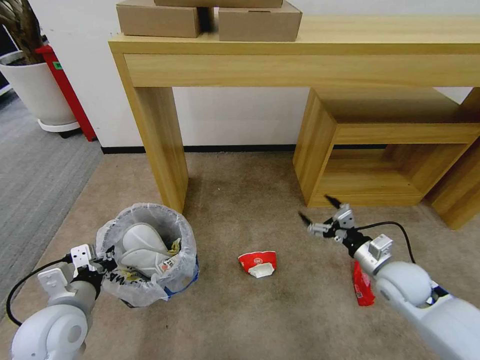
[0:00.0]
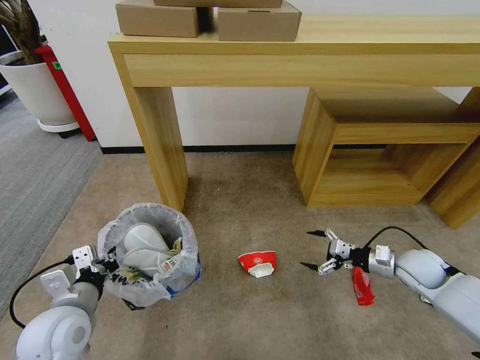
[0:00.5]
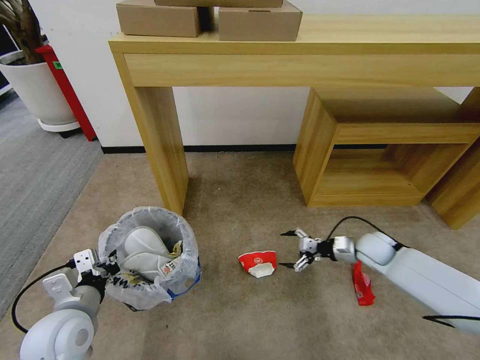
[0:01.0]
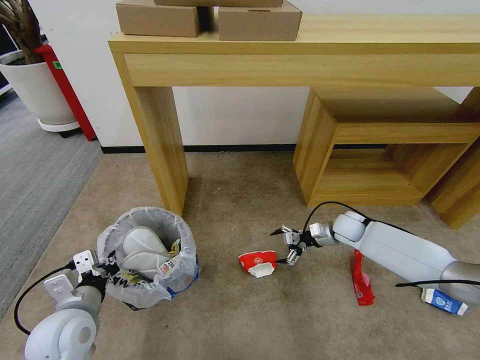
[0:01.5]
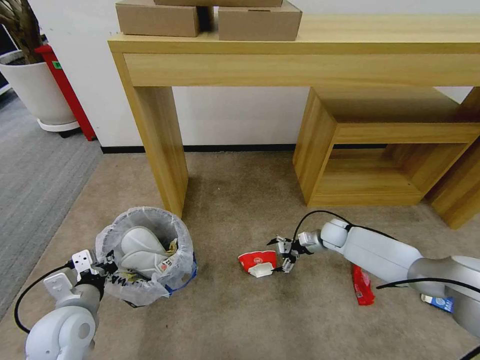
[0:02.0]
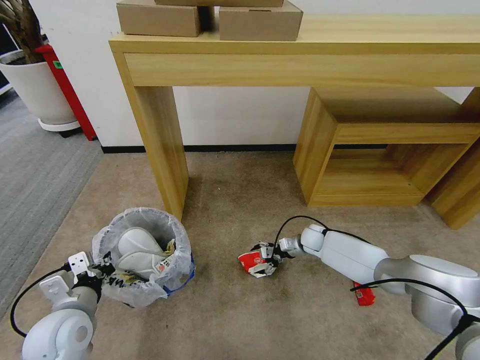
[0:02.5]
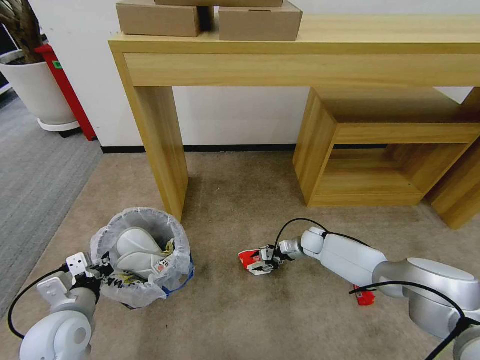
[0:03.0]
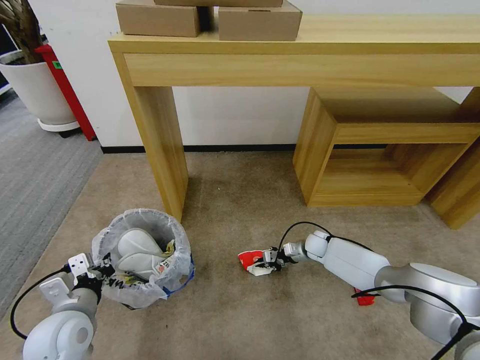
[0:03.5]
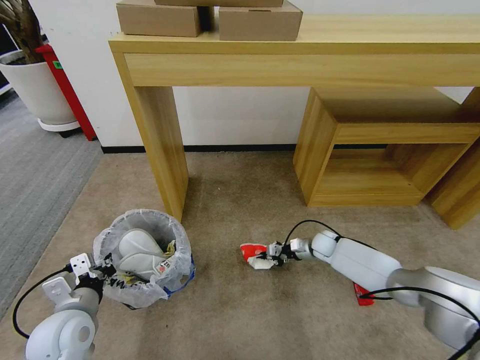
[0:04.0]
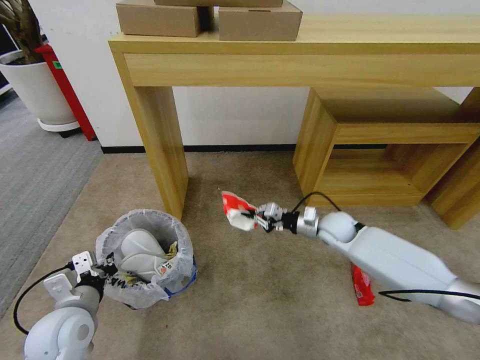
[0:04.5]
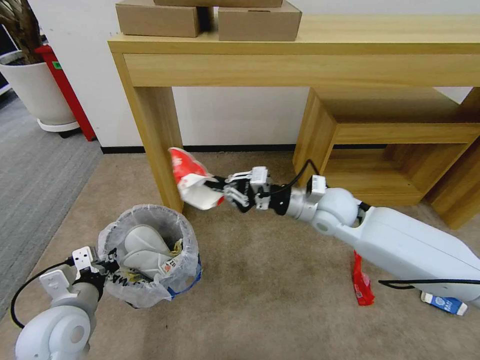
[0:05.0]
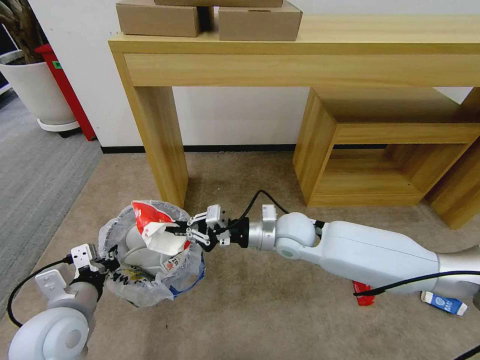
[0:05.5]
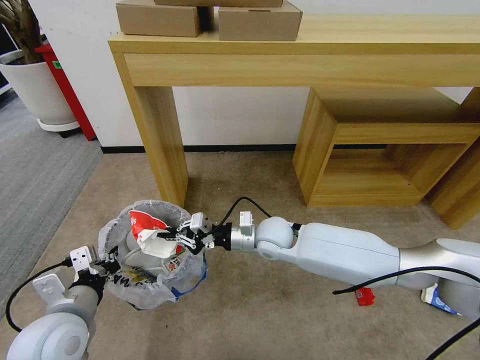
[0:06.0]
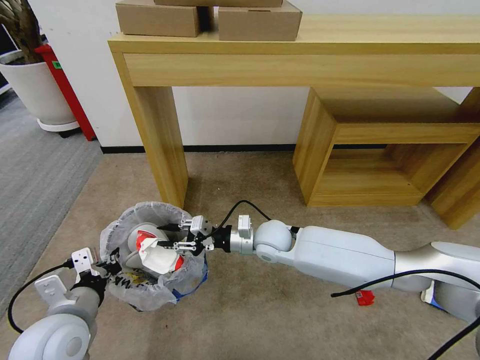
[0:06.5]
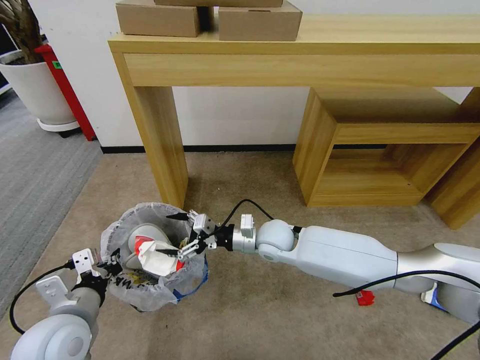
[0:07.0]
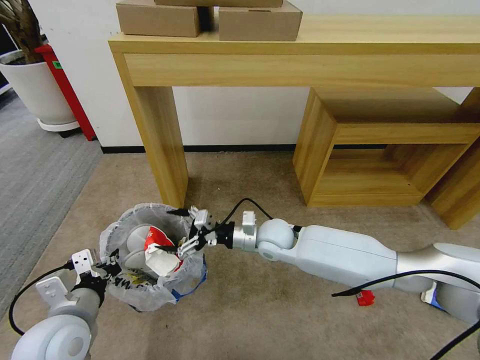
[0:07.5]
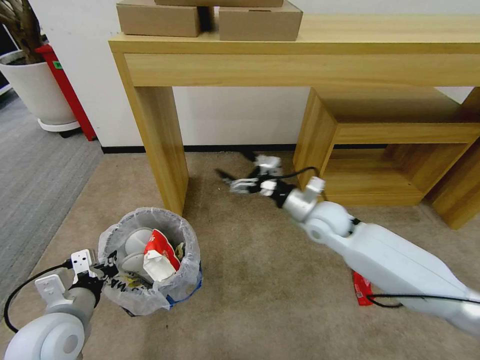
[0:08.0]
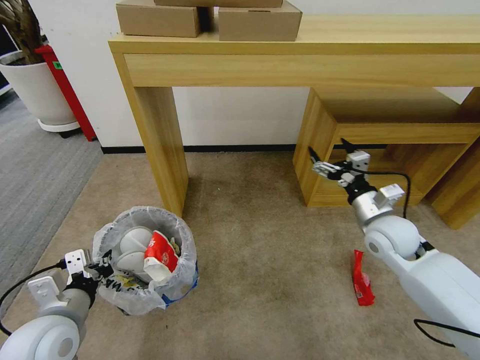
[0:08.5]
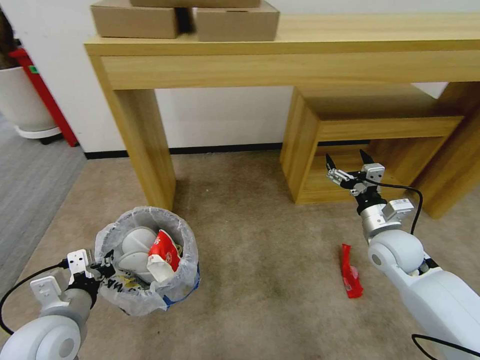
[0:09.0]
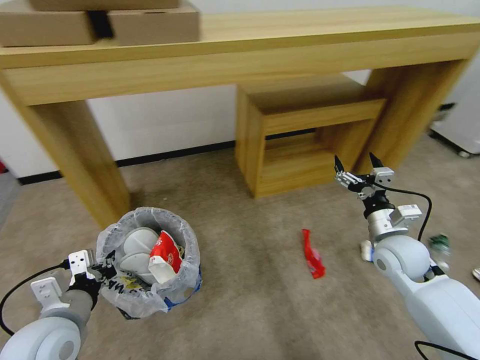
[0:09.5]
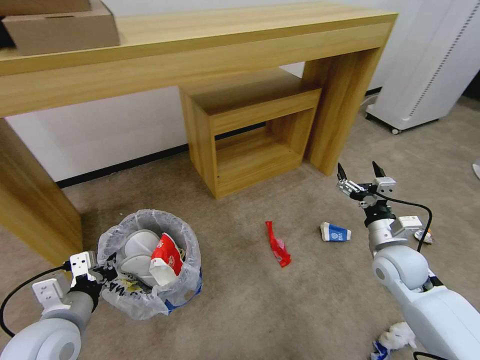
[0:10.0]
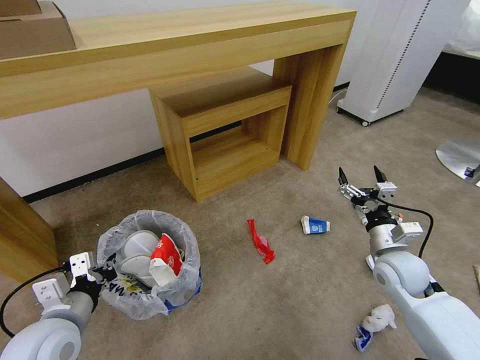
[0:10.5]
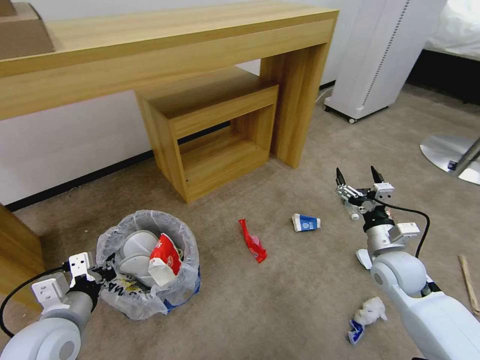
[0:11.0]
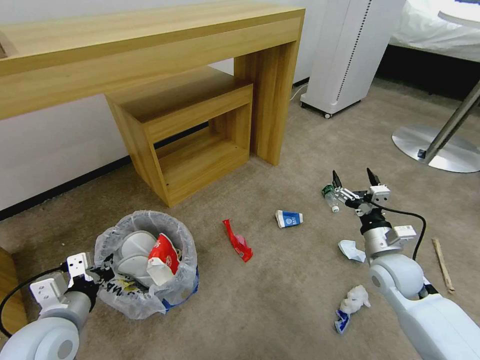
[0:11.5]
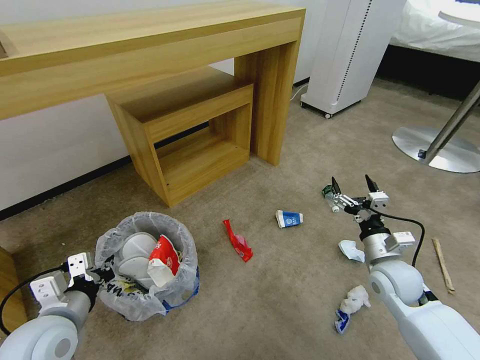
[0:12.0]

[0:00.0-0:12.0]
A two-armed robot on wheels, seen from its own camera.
Task of the whole recording: Pick up the trash bin and place the garbage on the floor into it.
0:00.0 to 0:02.0: The right gripper is displaced forward and downward by roughly 20 cm.
0:02.0 to 0:04.0: The right gripper moves downward, about 5 cm, and closes up.
0:04.0 to 0:06.0: The left gripper shifts some 5 cm upward, while the right gripper shifts about 30 cm to the left, upward and backward.
0:06.0 to 0:08.0: The right gripper goes some 15 cm to the right, and opens its fingers.
0:08.0 to 0:10.0: The right gripper heads to the right and backward, covering some 15 cm.

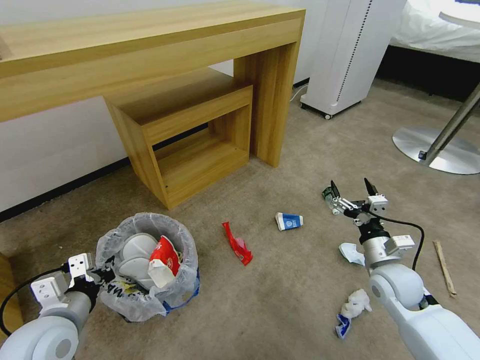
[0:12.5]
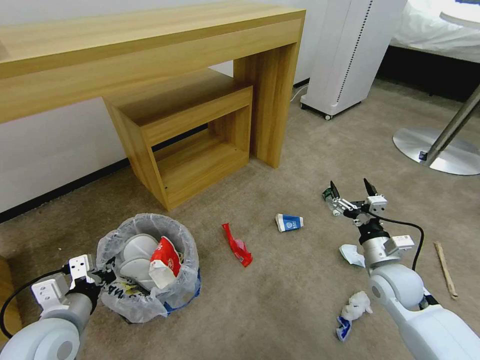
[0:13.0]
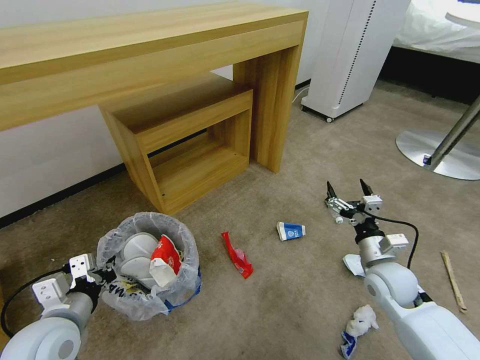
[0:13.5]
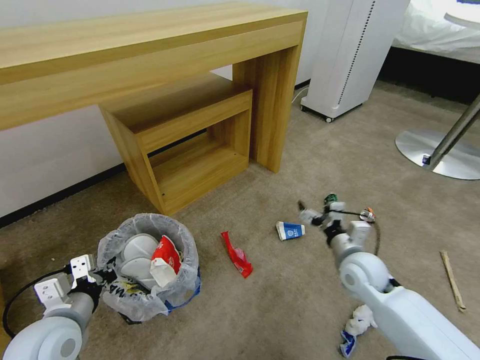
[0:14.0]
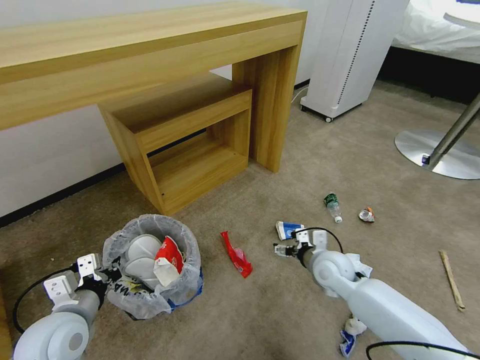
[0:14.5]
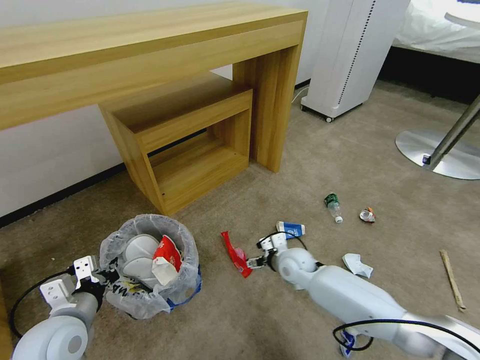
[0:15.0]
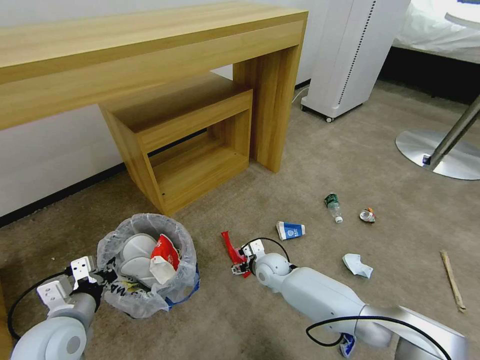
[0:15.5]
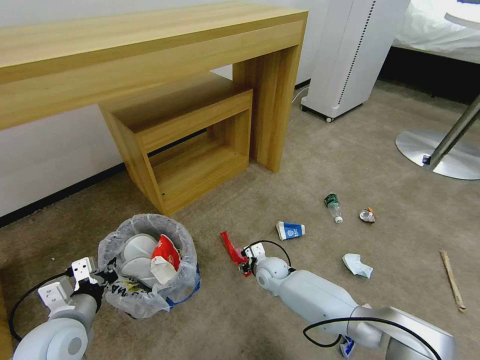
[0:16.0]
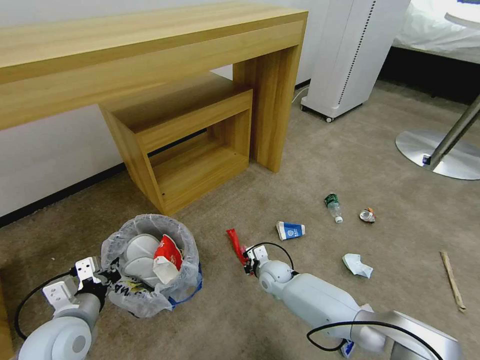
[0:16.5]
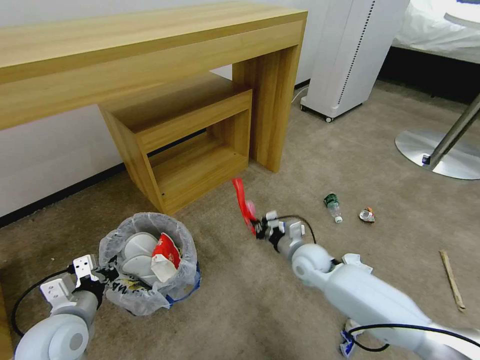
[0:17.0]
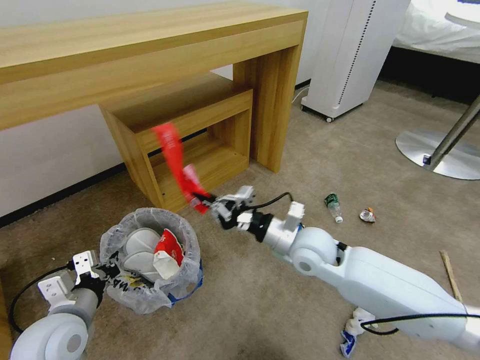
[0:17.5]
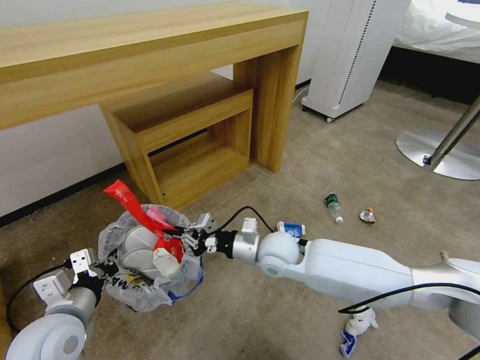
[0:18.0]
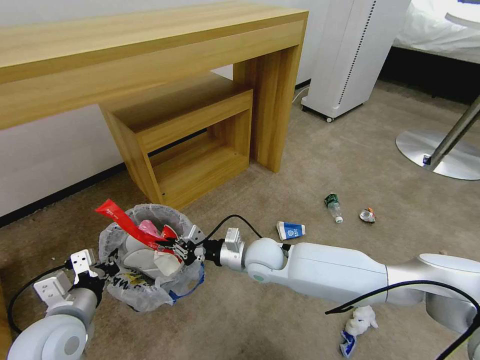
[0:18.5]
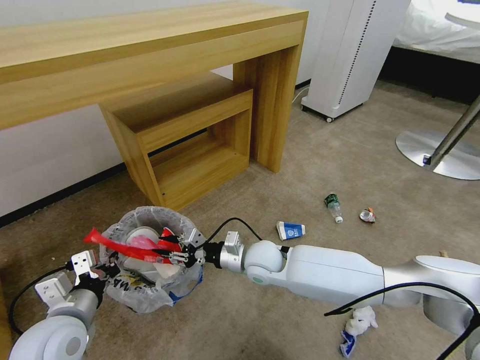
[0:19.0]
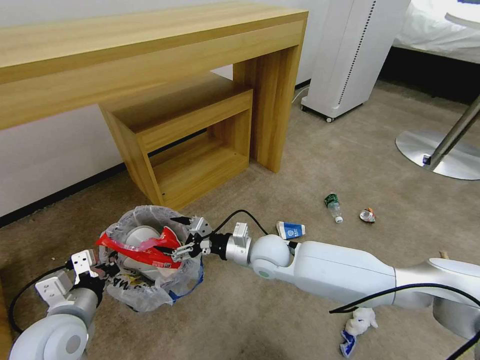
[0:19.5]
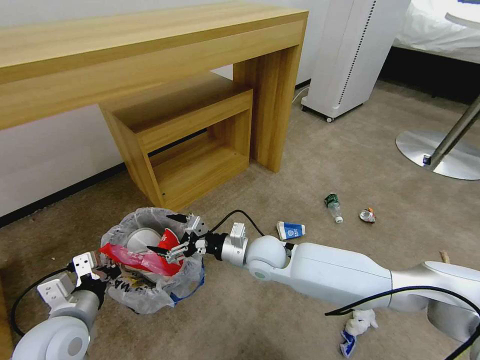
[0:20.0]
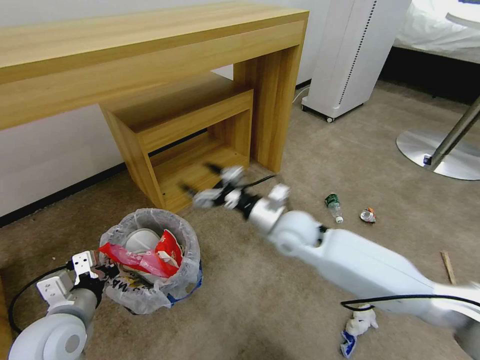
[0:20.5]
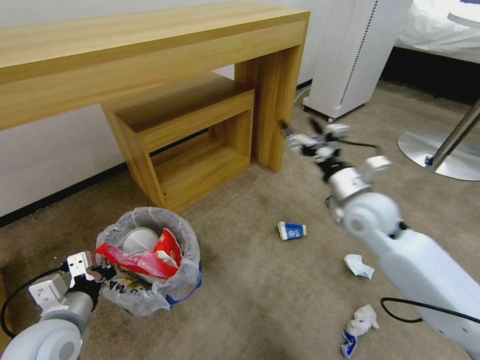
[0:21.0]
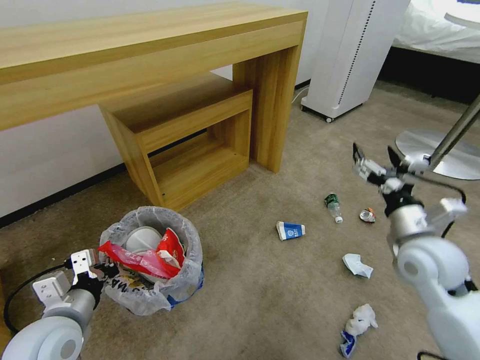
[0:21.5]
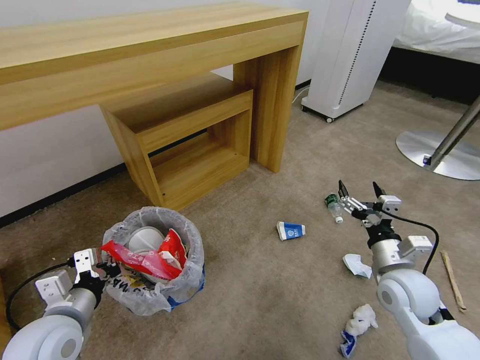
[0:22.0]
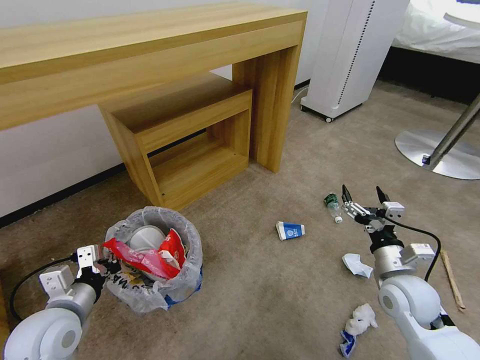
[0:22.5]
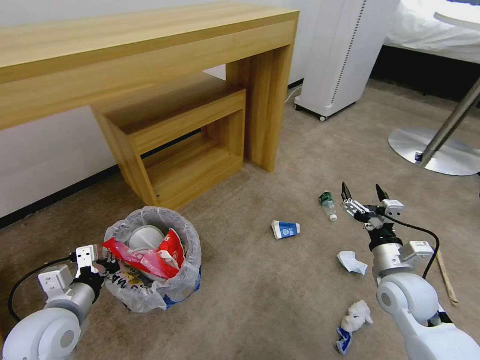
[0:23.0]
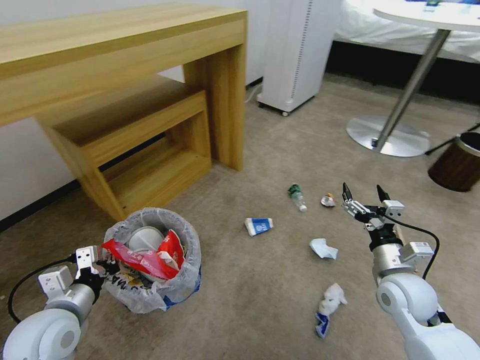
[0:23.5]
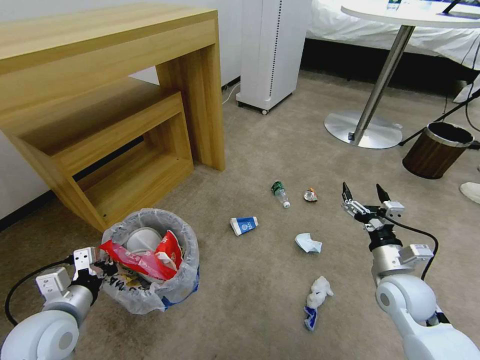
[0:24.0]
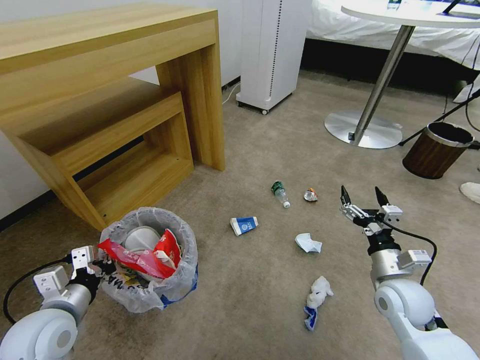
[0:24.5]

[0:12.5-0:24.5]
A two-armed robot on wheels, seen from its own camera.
Task of the whole recording: Pick up the trash bin and place the garbage on the floor into it.
0:12.5 to 0:14.5: The right gripper heads to the left and forward, covering about 15 cm.
0:14.5 to 0:16.5: The right gripper is displaced downward and to the left by approximately 15 cm, and closes up.
0:16.5 to 0:18.5: The right gripper goes approximately 15 cm upward.
0:18.5 to 0:20.5: The right gripper is displaced upward by roughly 5 cm, and opens.
0:20.5 to 0:22.5: The right gripper moves to the right and backward, approximately 25 cm.

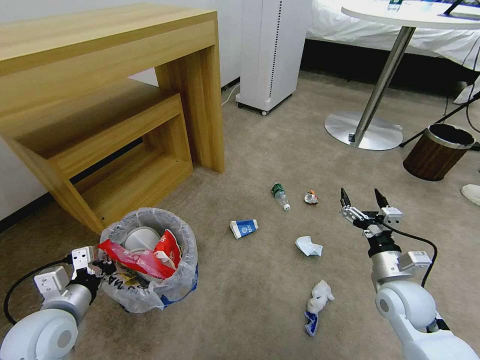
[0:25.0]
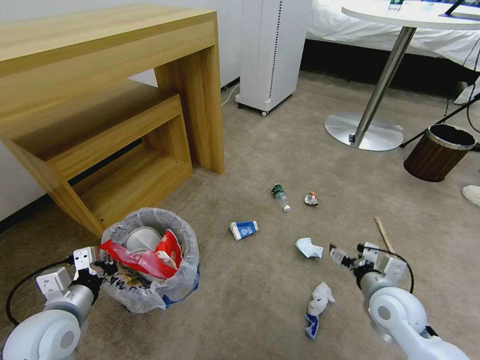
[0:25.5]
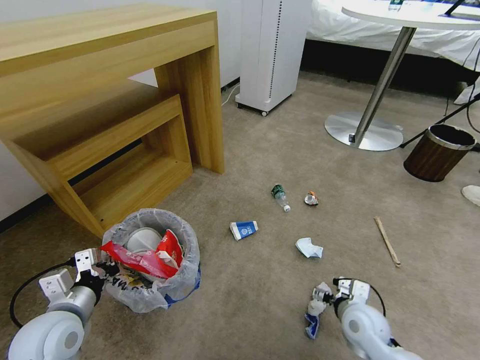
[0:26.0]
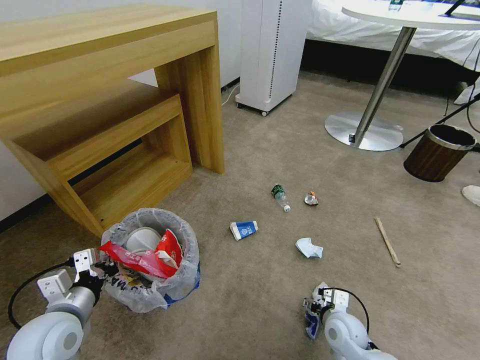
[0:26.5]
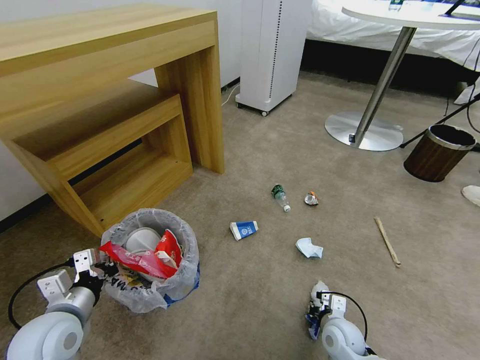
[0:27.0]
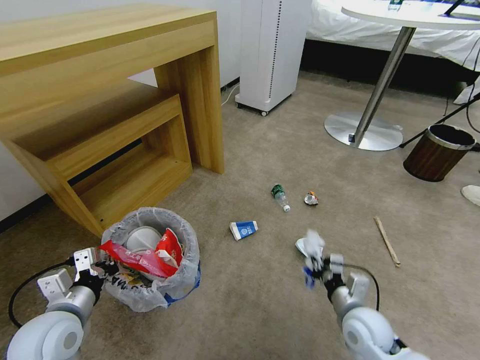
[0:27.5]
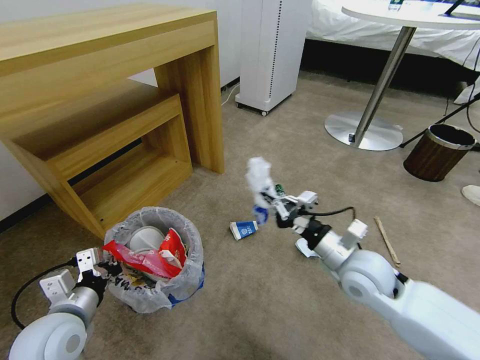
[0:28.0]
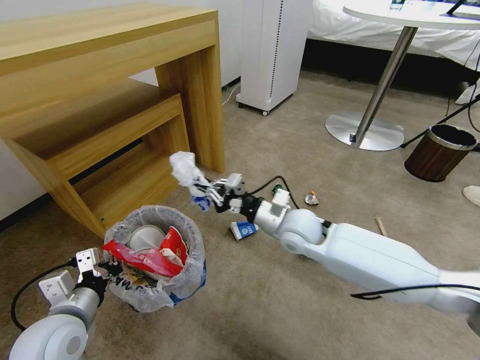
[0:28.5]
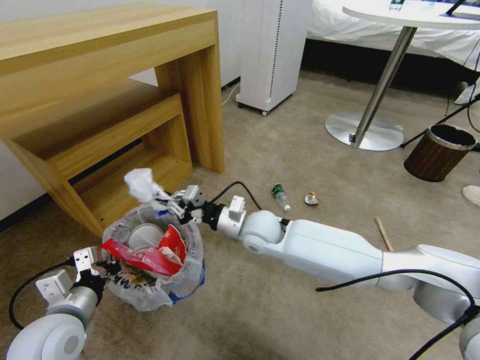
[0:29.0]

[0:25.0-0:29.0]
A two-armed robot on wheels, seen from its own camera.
Task of the whole recording: Pick up the trash bin and place the garbage on the floor into it.
0:25.0 to 0:27.0: The right gripper shifts some 20 cm downward and to the left, and closes its fingers.
0:27.0 to 0:29.0: The right gripper is displaced upward, to the left and forward by roughly 35 cm, and closes its fingers.
